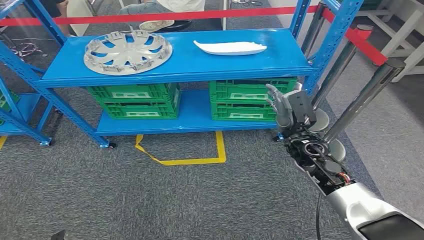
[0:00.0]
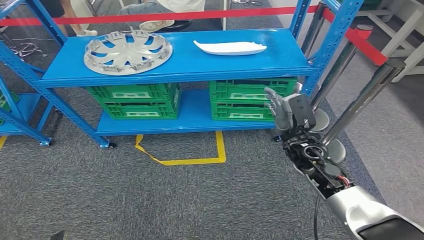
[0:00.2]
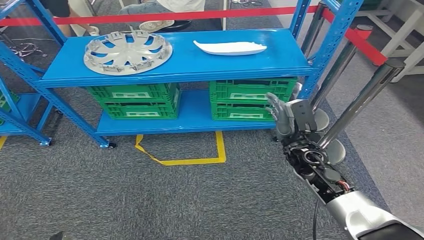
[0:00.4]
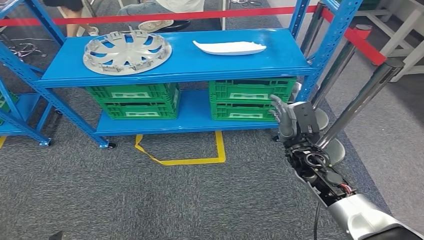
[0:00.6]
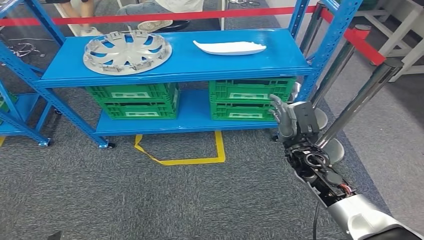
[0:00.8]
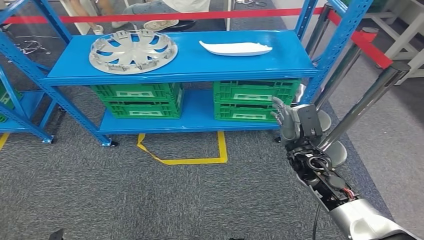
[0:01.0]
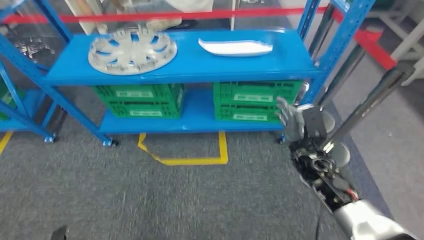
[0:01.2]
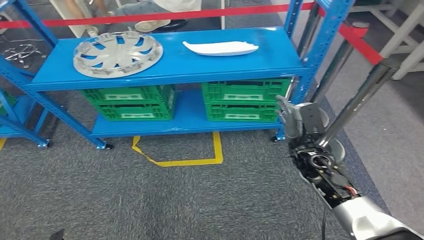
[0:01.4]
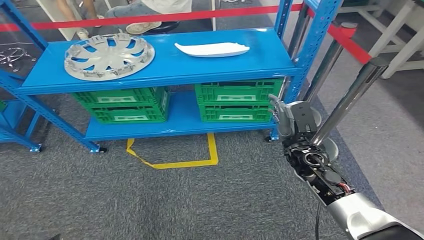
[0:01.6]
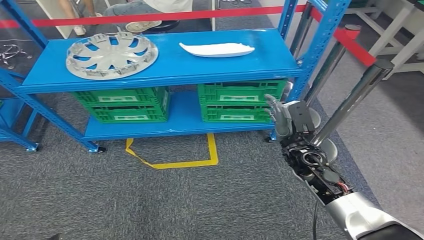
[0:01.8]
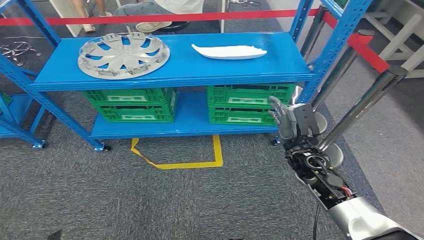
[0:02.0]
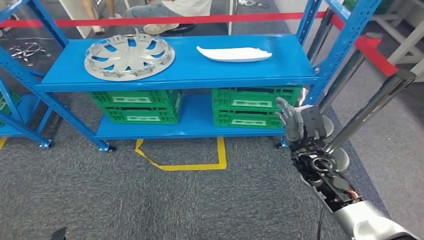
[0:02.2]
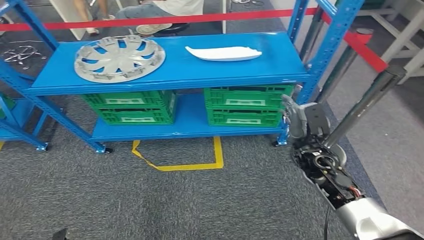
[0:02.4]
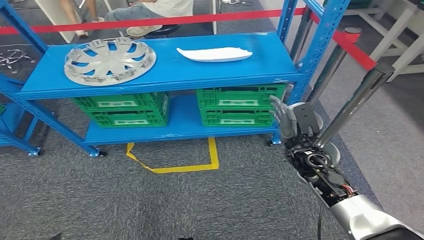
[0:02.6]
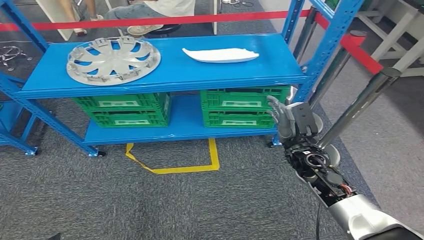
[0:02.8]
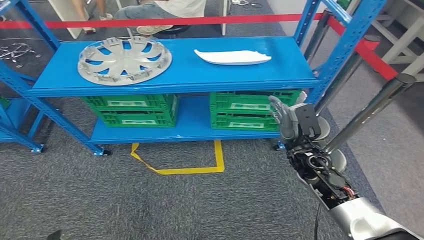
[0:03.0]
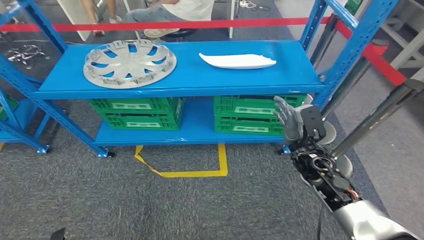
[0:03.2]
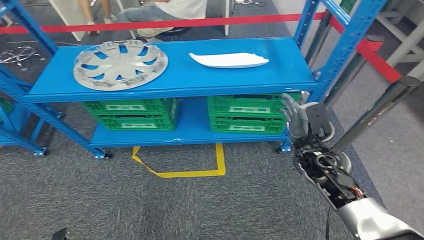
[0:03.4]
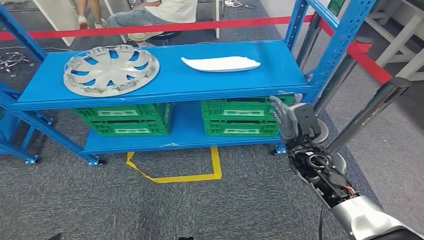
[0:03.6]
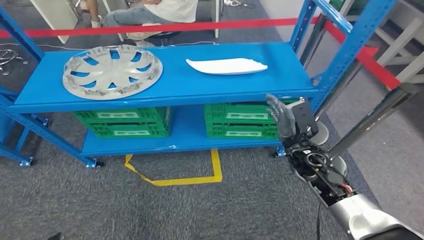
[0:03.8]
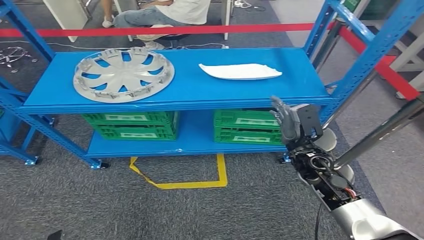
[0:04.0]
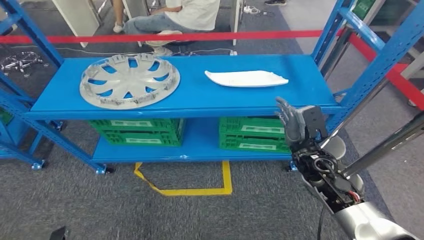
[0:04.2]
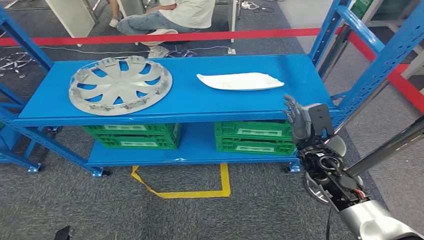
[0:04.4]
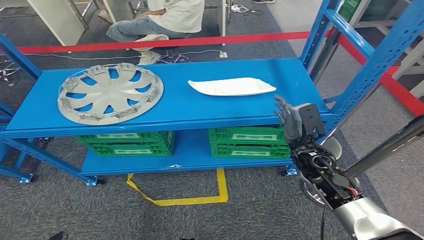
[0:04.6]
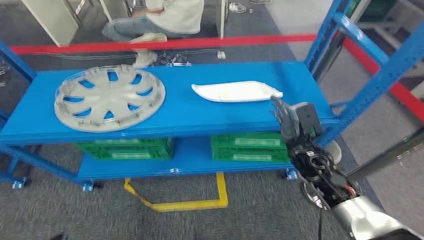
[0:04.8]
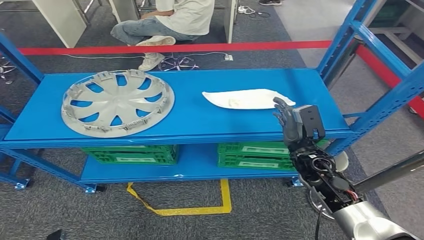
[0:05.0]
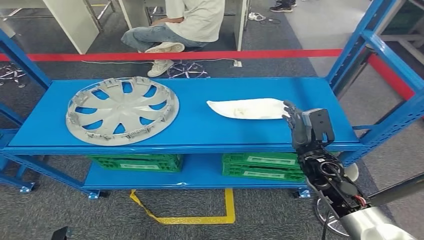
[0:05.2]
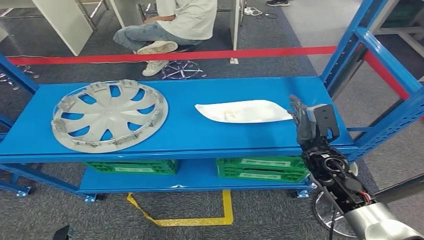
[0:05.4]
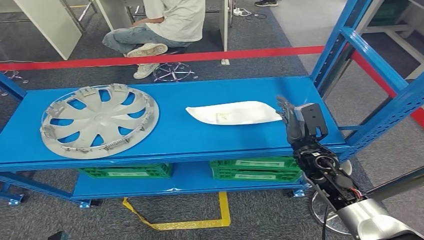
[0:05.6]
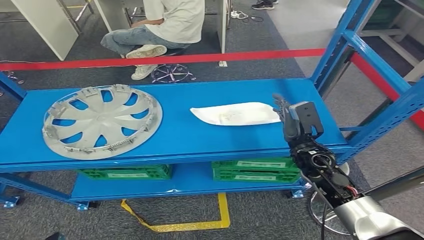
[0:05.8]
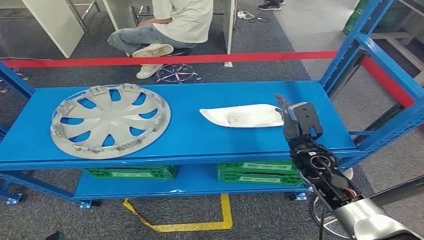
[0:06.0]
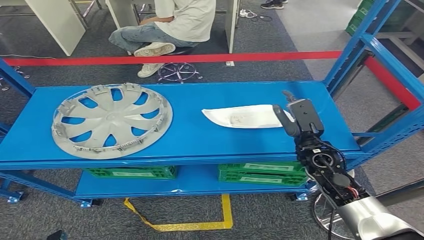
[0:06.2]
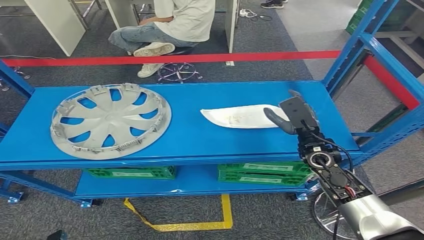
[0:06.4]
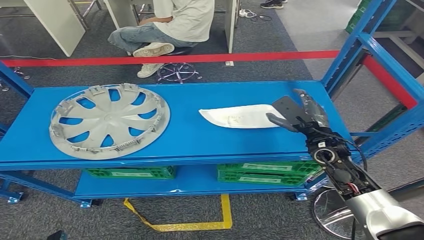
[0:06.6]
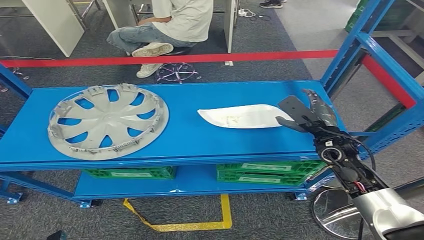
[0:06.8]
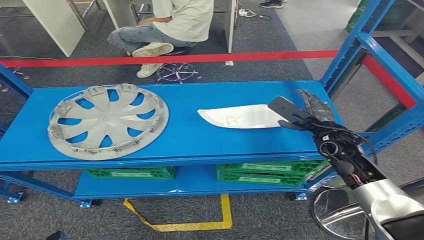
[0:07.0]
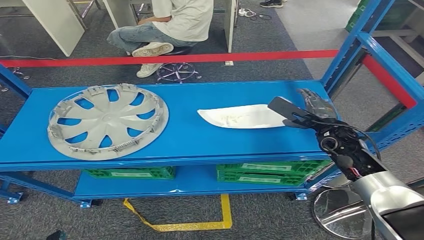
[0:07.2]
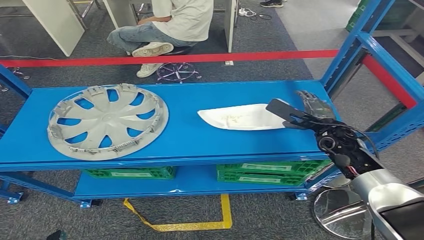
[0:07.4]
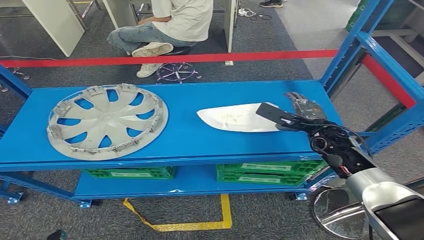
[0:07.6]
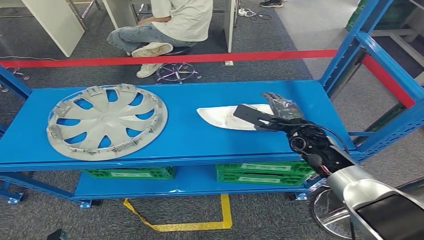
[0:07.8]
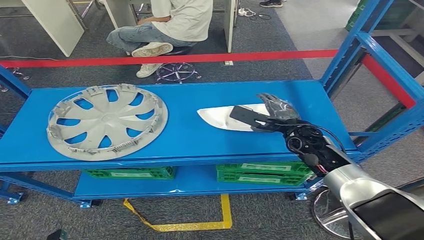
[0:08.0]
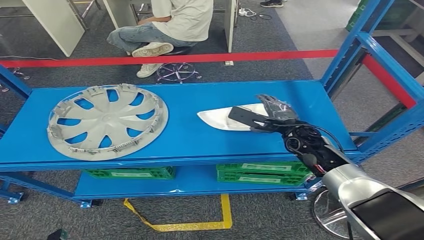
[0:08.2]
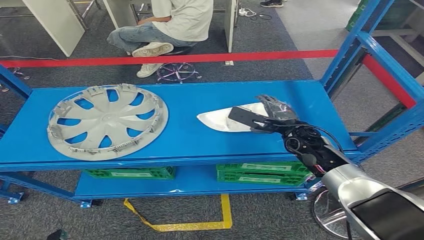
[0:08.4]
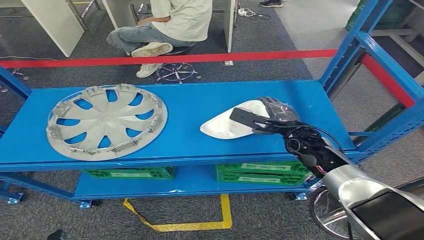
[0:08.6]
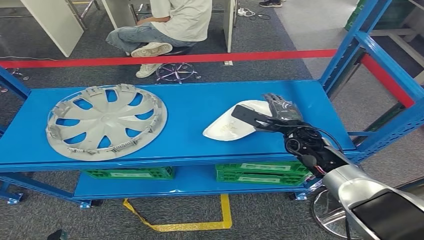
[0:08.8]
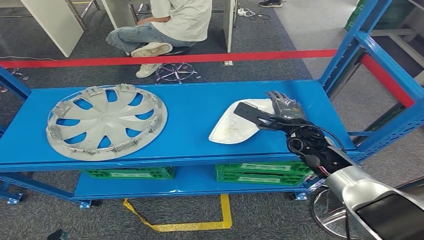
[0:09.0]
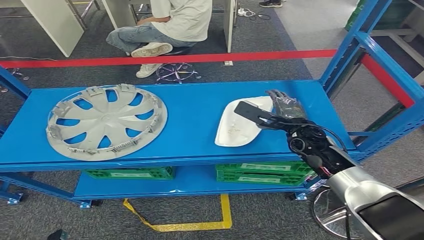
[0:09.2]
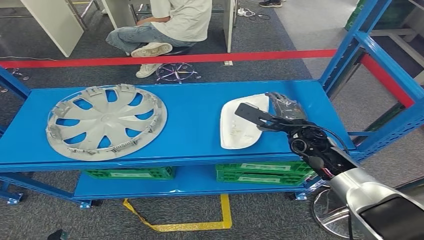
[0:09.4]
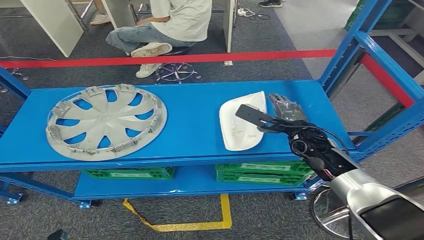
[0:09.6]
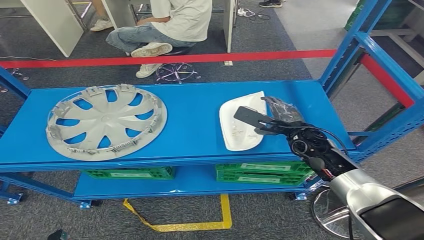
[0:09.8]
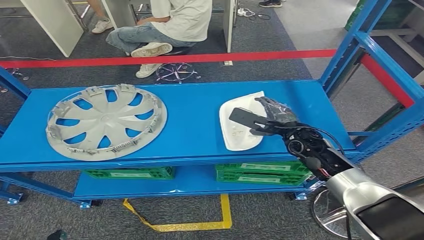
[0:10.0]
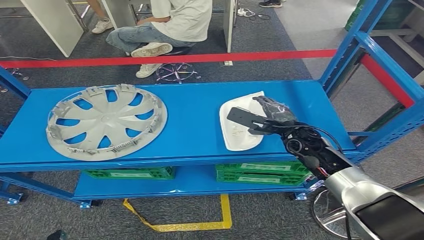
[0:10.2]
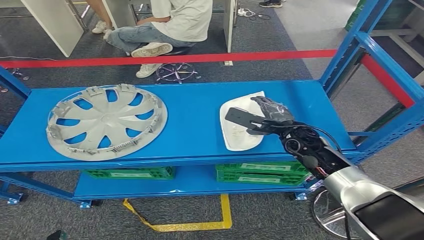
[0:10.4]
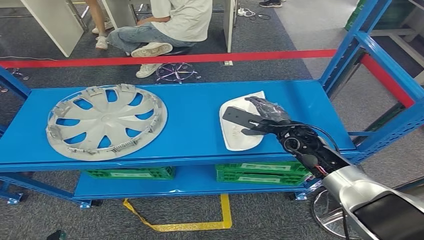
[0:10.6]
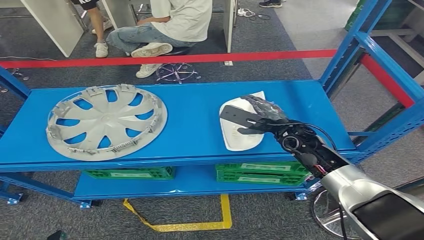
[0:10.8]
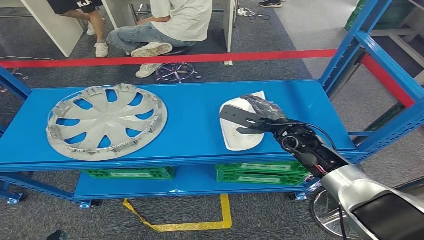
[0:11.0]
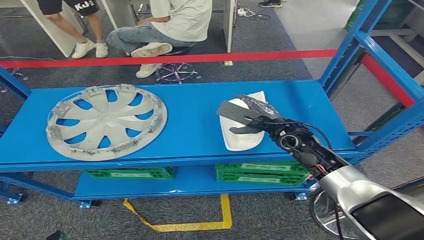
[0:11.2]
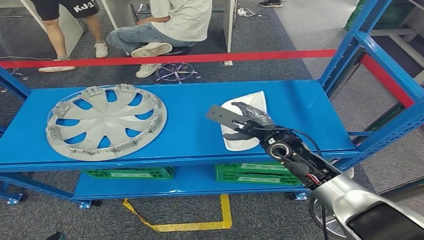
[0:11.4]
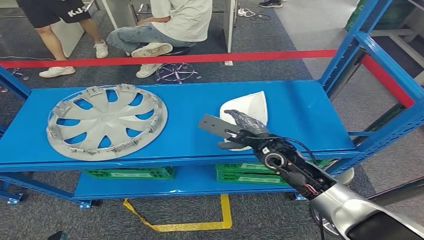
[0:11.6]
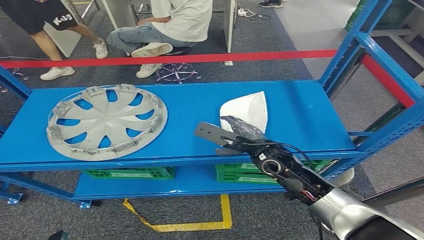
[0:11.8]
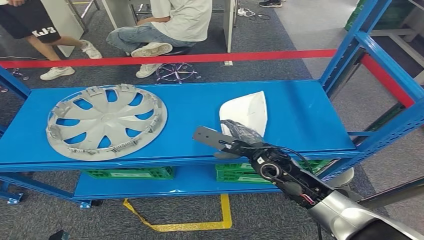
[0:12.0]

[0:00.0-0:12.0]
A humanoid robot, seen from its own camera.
0:06.0 to 0:07.6: The right hand is displaced forward by approximately 5 cm.
0:07.6 to 0:09.0: The right hand goes roughly 5 cm to the left.
0:09.0 to 0:10.4: There are only small adjustments of the hands.
0:10.4 to 0:12.0: The right hand goes some 10 cm backward and to the left.

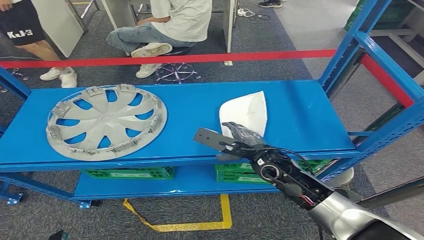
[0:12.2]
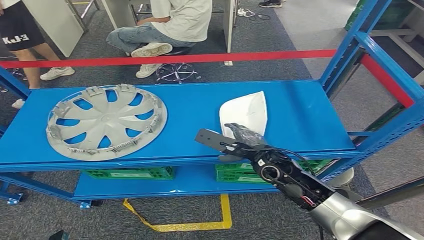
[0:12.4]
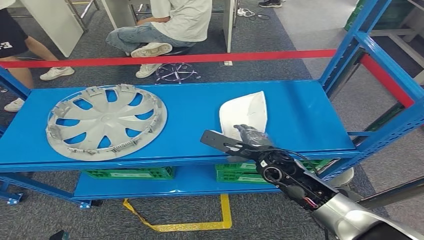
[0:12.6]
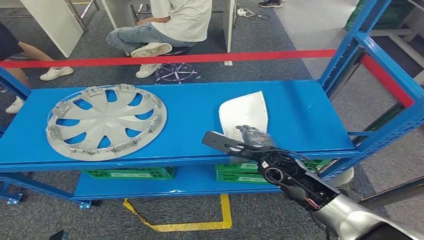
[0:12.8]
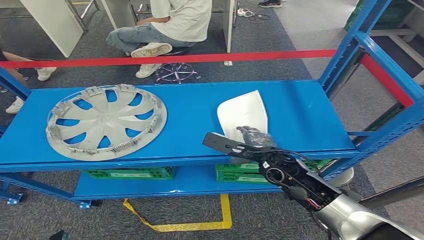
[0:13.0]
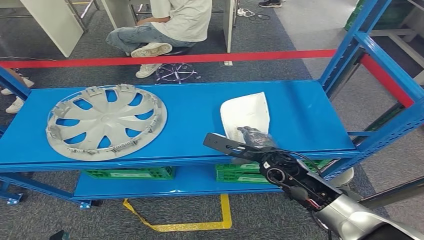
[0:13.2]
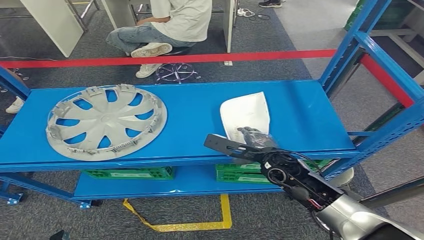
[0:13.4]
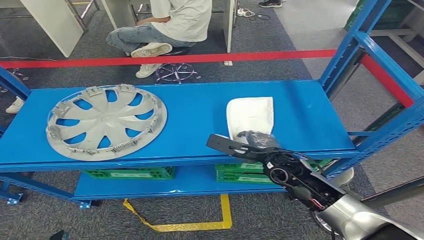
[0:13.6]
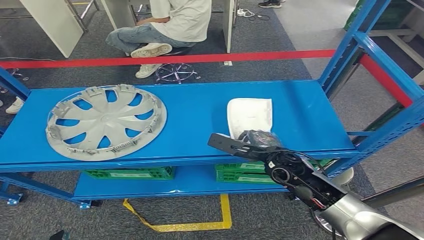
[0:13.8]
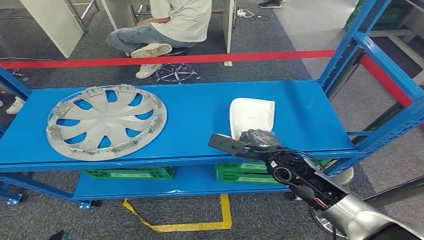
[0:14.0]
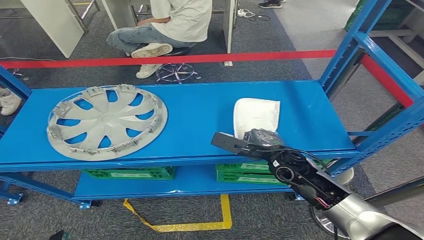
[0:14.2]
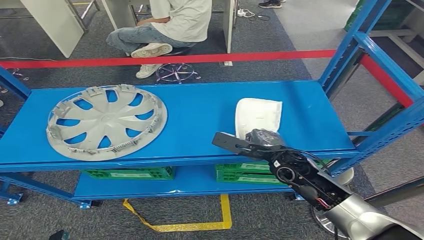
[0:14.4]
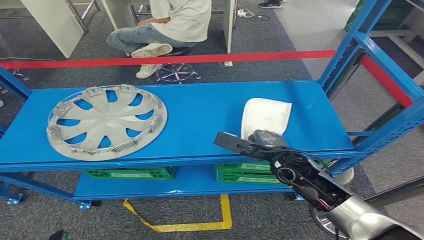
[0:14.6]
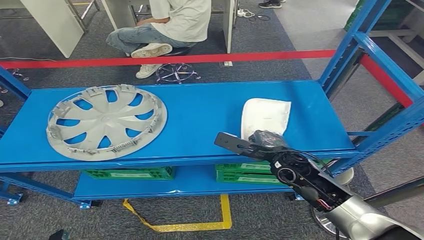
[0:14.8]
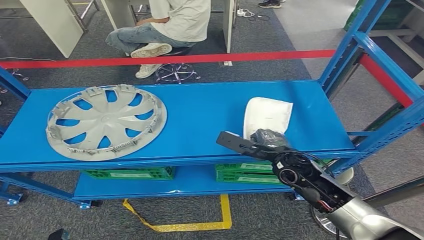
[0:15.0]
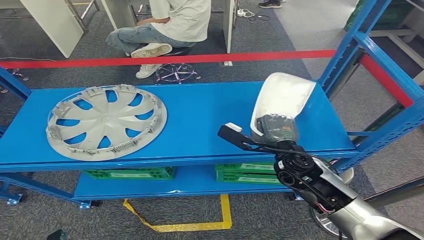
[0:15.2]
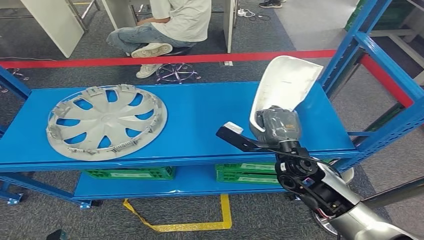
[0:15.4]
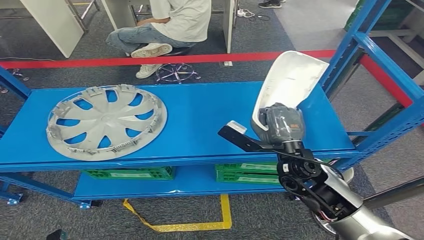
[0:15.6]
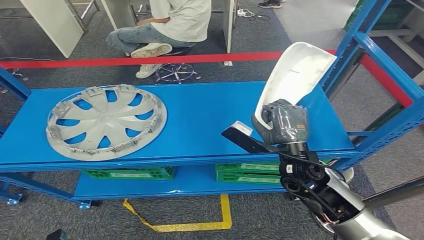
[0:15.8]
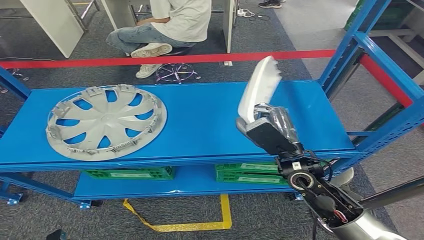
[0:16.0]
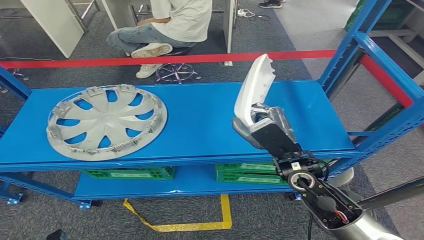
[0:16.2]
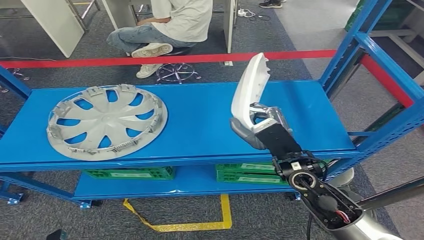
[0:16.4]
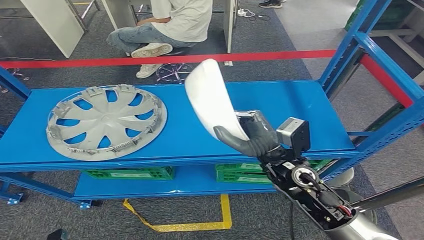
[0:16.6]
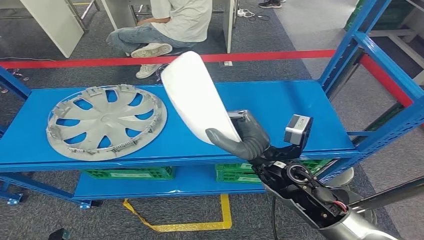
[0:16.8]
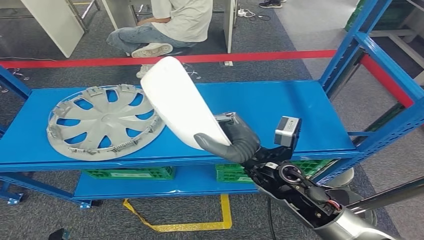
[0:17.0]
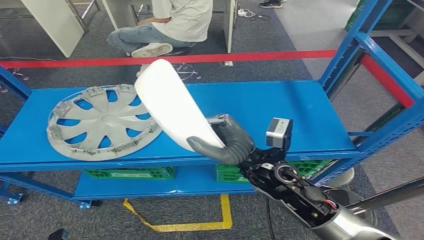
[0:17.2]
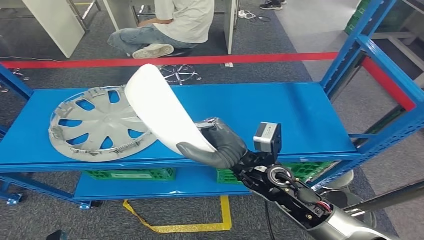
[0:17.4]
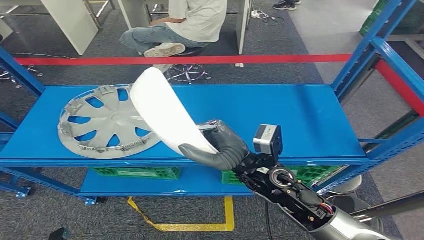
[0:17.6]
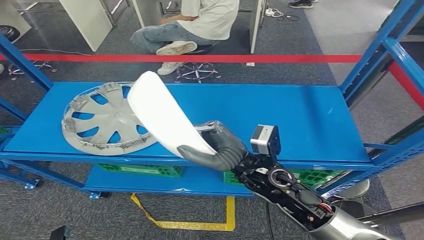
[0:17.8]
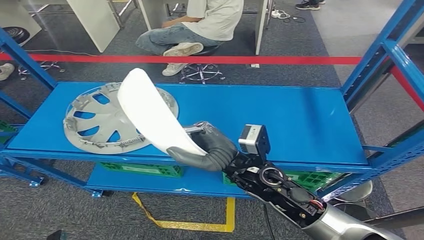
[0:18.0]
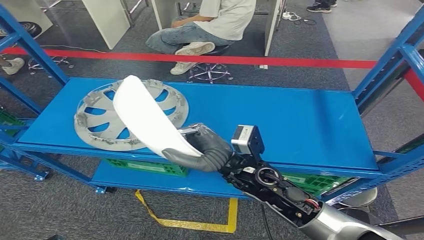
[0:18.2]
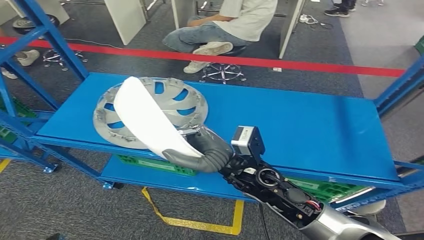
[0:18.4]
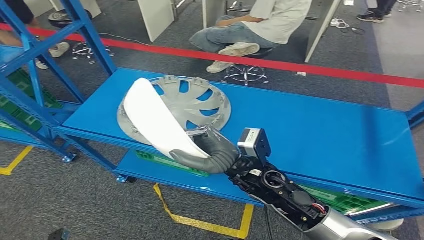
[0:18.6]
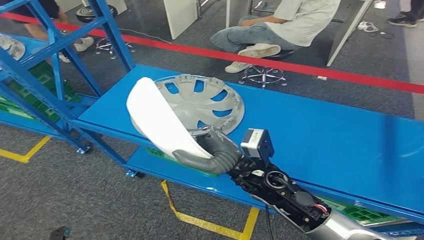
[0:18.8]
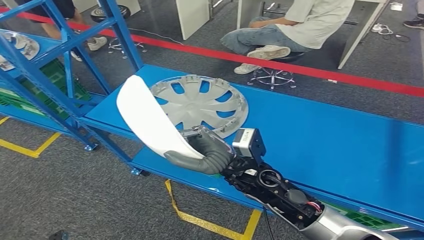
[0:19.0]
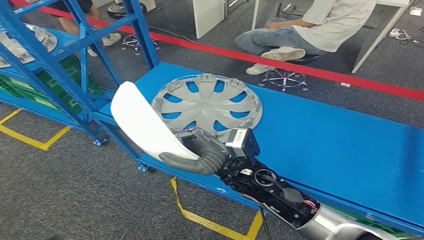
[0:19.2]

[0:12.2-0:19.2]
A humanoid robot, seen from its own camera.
Step, 0:12.2 to 0:16.0: Pick up the small component from the shelf.
0:12.2 to 0:15.0: There are only small adjustments of the hands.
0:15.0 to 0:16.4: The right hand travels upward by approximately 5 cm.
